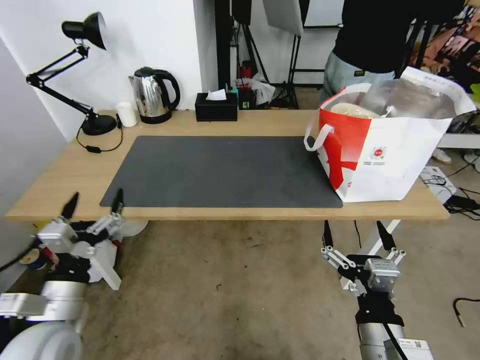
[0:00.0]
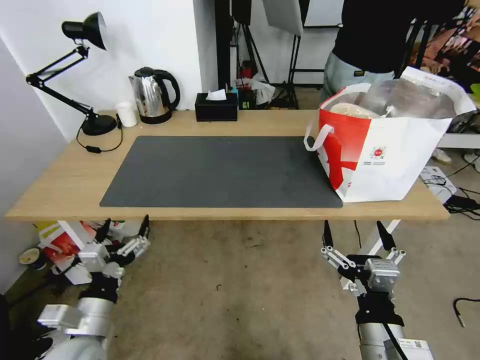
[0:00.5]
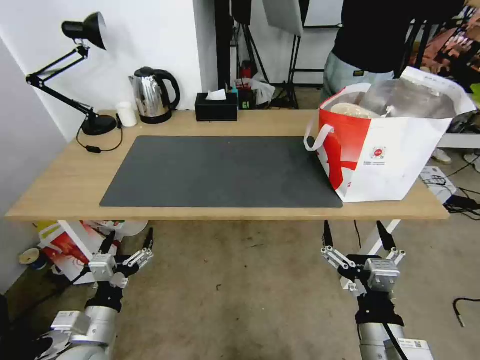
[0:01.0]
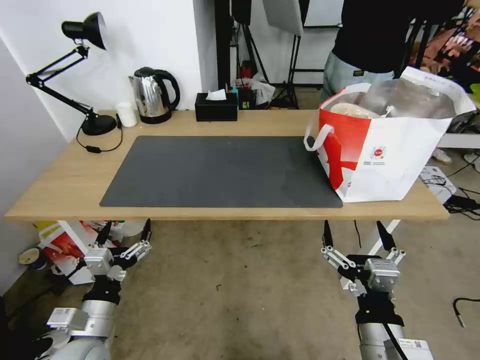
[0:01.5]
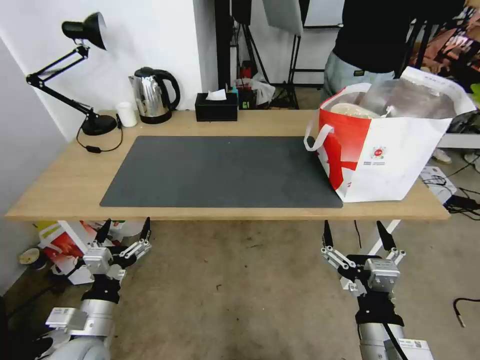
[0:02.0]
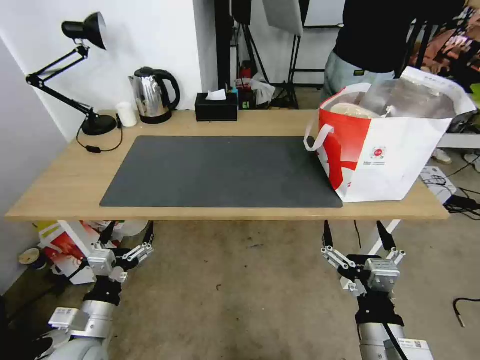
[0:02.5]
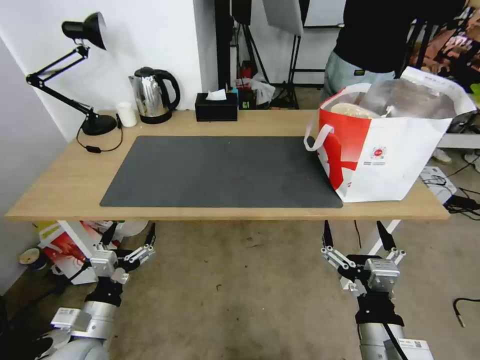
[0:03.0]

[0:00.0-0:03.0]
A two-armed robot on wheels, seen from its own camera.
Task of the whole recording: Pick up the trash from the table and place it into the takeout bag.
0:00.0 to 0:01.5: The left gripper is displaced downward by approximately 5 cm.
0:01.5 to 0:03.0: Both grippers stay about where they are.
